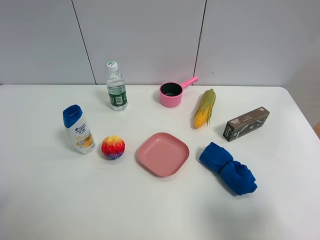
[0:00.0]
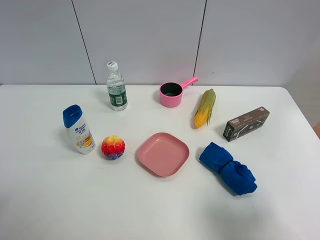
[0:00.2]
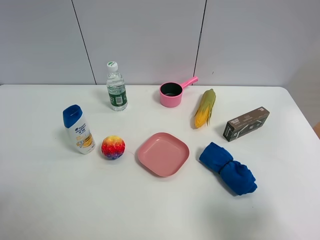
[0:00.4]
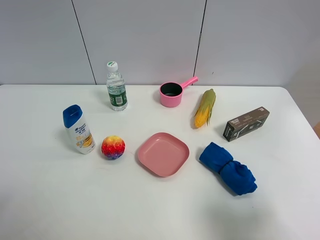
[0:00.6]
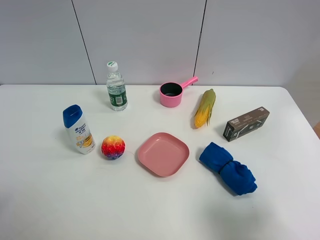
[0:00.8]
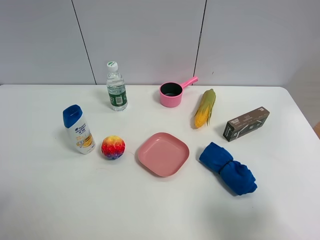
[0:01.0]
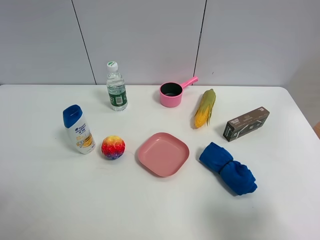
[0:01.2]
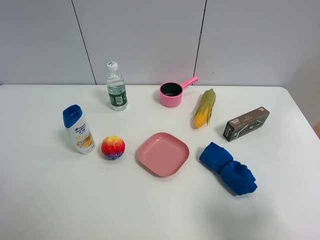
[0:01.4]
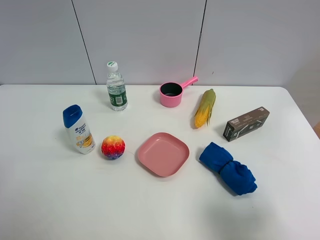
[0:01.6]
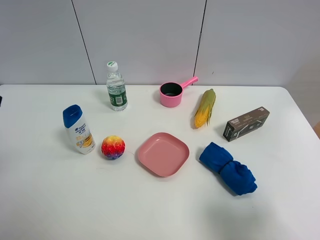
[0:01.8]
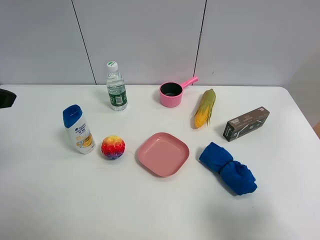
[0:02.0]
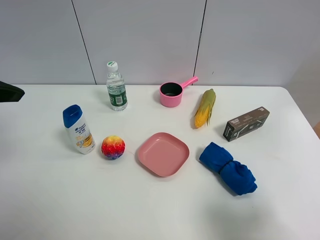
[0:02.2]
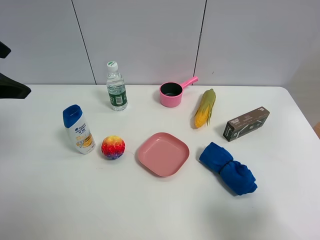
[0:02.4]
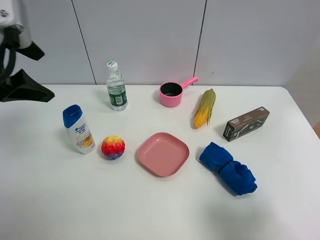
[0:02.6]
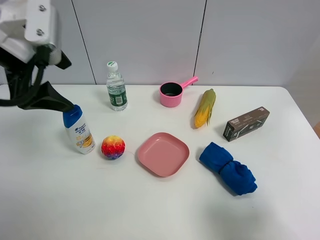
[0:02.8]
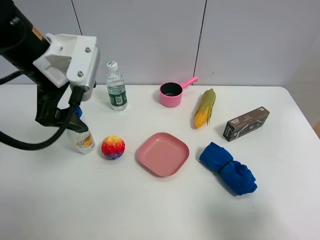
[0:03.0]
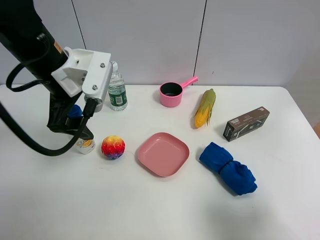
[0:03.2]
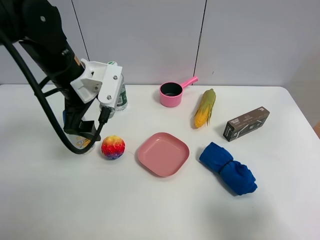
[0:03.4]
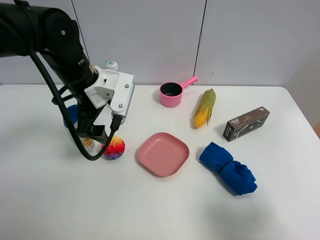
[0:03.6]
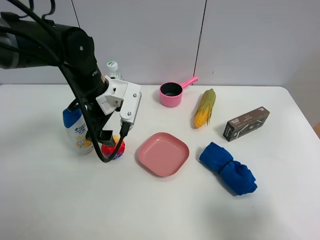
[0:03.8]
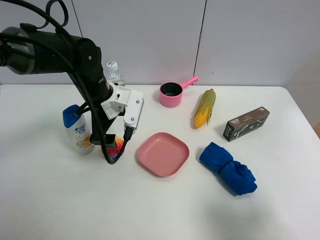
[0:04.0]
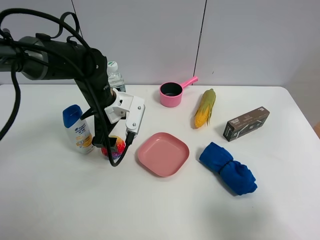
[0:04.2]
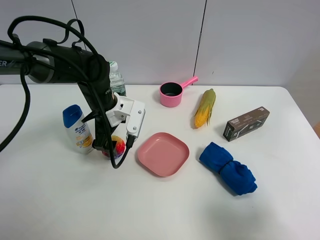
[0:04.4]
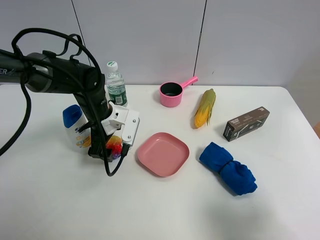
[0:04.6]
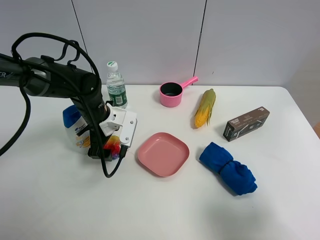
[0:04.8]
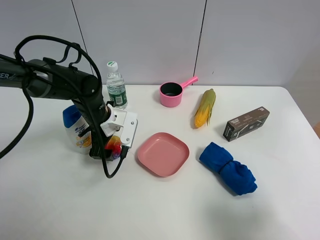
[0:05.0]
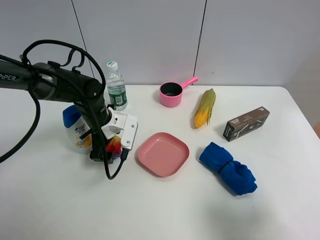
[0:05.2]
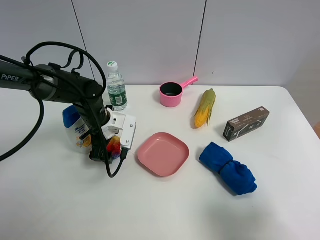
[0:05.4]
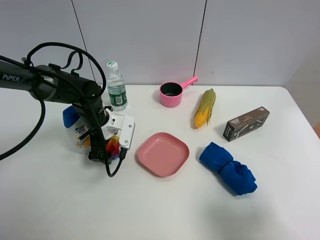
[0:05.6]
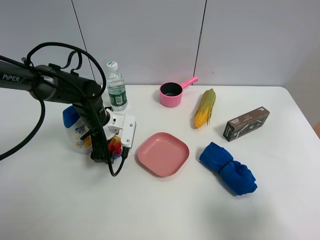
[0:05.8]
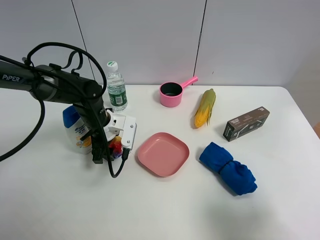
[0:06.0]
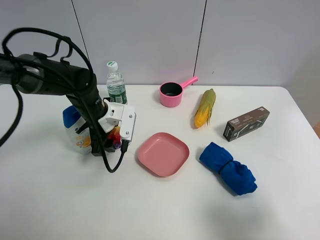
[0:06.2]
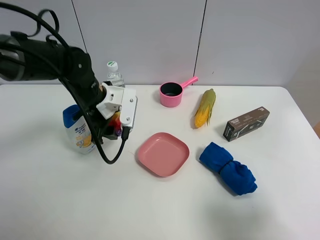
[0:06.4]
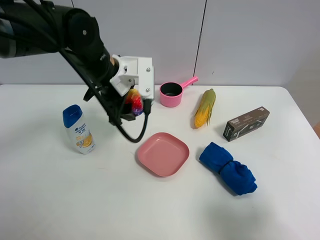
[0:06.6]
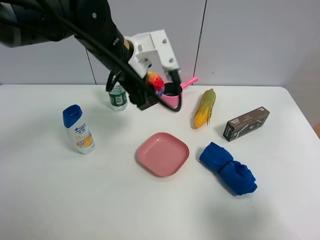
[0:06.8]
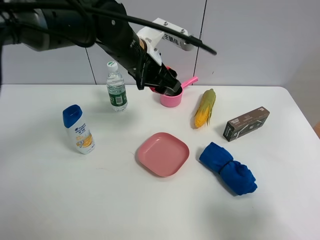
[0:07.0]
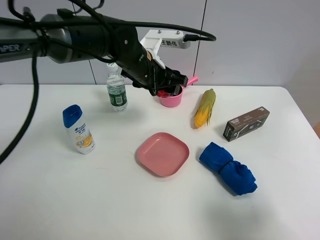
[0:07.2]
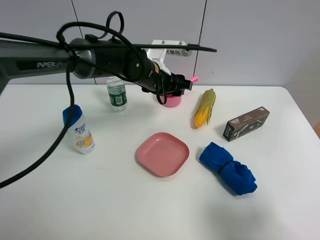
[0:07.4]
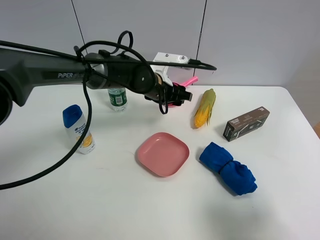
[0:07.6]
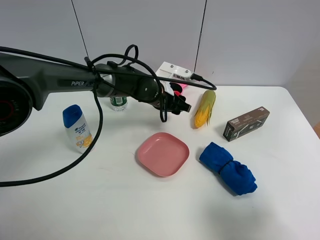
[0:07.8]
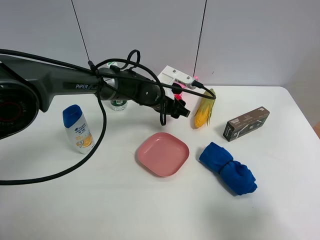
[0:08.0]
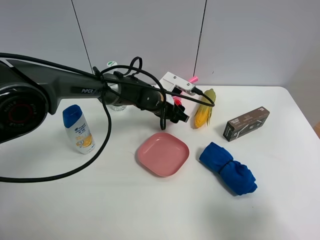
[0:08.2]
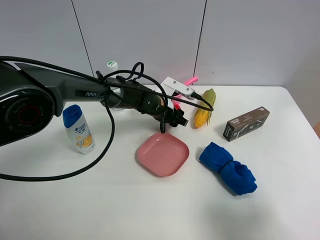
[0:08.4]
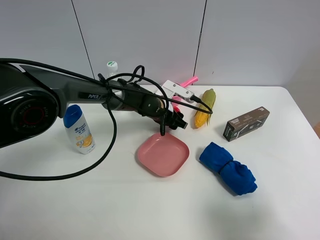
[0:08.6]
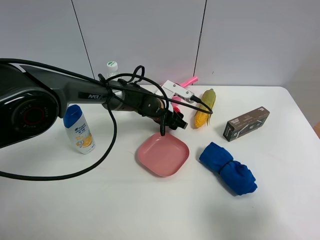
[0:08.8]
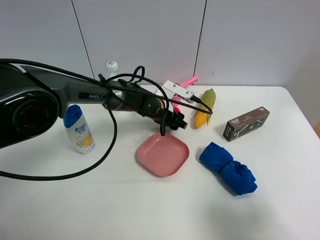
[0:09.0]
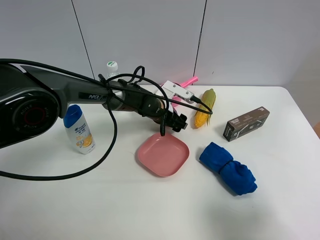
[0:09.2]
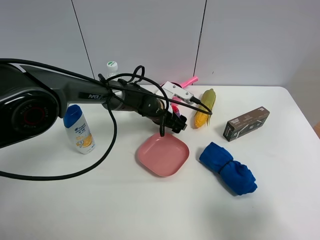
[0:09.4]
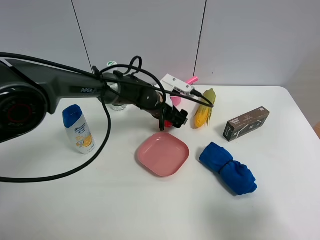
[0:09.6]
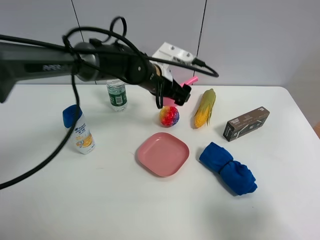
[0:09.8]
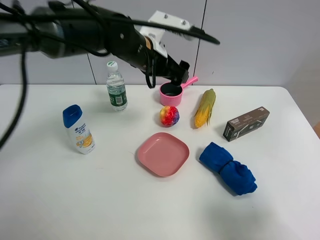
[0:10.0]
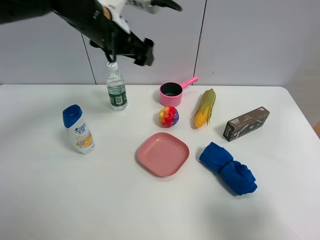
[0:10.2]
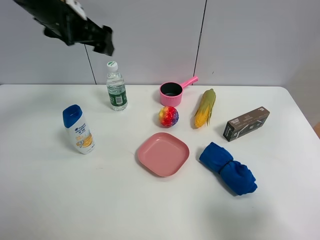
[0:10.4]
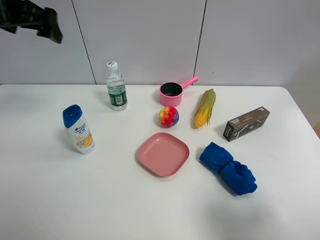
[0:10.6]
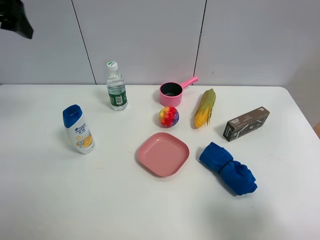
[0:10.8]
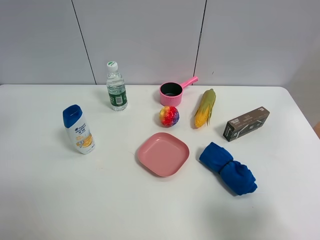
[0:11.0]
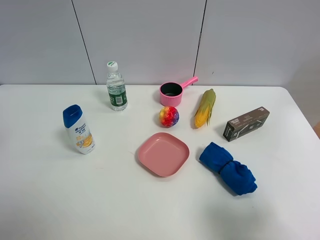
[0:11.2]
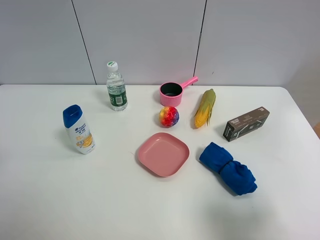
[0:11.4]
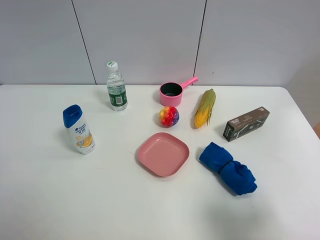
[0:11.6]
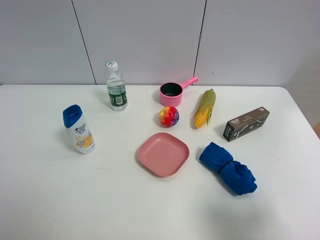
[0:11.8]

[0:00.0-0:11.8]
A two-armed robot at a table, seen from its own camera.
Task of the whole recording: the gripper move the object.
Step, 0:00.0 to 0:06.0: Grasp the colorful ball with the left gripper.
Step, 0:06.2 to 0:09.6: Place the colorful ball on the table with the left gripper.
0:01.4 to 0:03.0: The left gripper moves forward and to the right, approximately 25 cm.
0:03.0 to 0:04.4: The left gripper moves downward, some 15 cm.
0:04.4 to 0:06.0: The left gripper ends up some 5 cm from where it was, and closes up.
0:06.0 to 0:07.4: The left gripper goes roughly 15 cm to the right, upward and forward.
0:07.4 to 0:08.8: The left gripper shifts approximately 10 cm downward.
0:08.8 to 0:10.4: The left gripper is displaced upward and to the left by about 35 cm, and opens its fingers.
0:10.4 to 0:11.8: The left gripper goes some 35 cm backward.

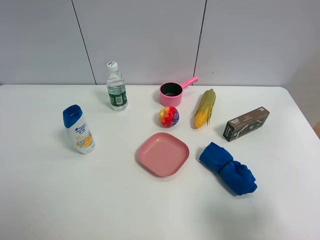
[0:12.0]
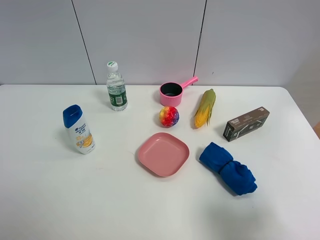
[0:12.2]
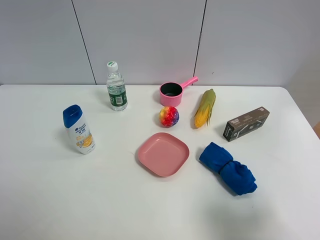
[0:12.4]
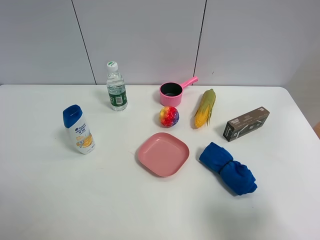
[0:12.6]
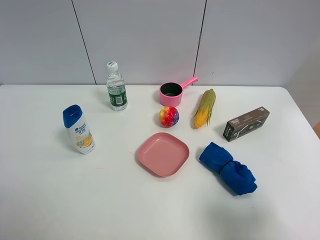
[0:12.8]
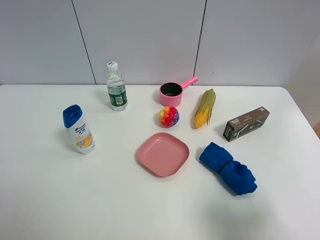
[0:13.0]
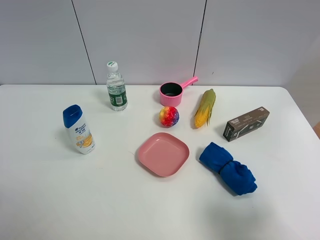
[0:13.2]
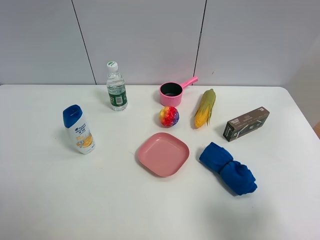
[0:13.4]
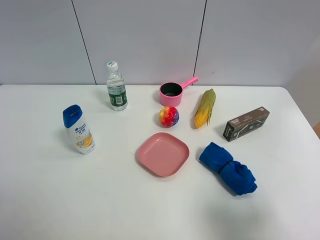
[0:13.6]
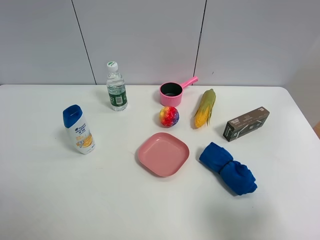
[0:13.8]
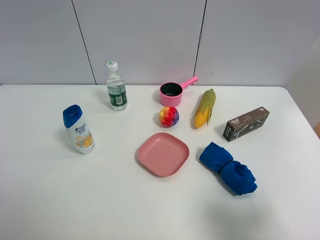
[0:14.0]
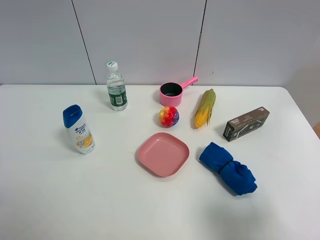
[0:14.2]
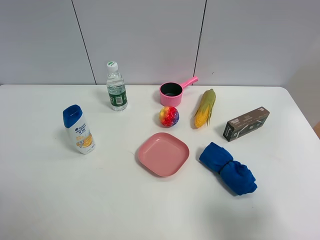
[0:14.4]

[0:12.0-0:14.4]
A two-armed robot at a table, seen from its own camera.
Task of the whole recording: the gripper move the object.
0:13.2 to 0:14.4: The two grippers keep their place.

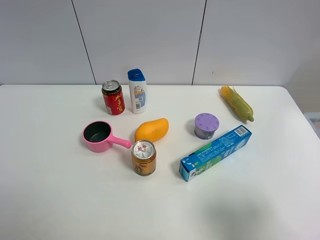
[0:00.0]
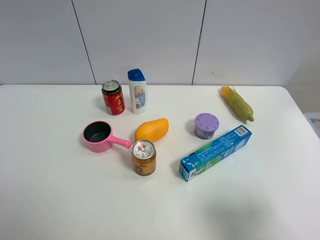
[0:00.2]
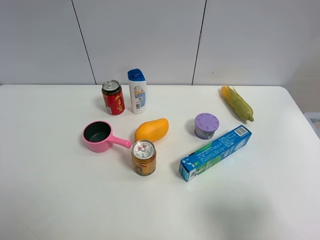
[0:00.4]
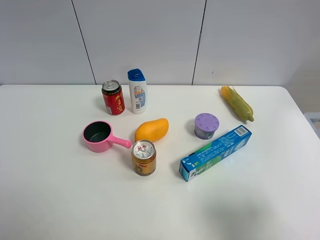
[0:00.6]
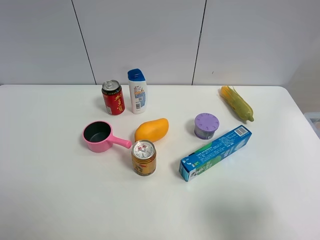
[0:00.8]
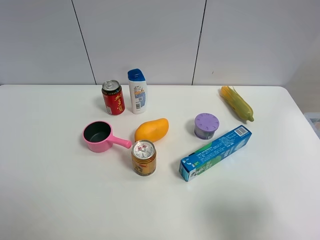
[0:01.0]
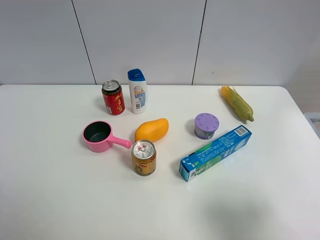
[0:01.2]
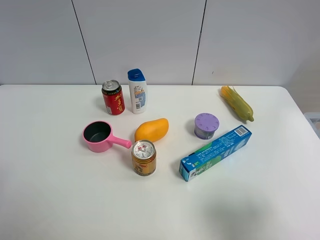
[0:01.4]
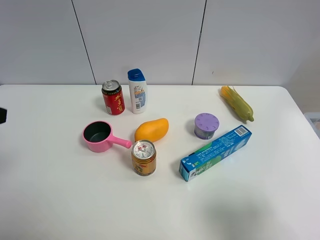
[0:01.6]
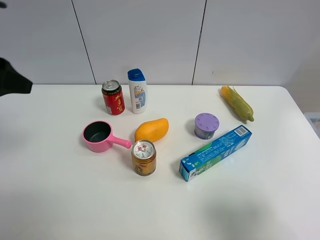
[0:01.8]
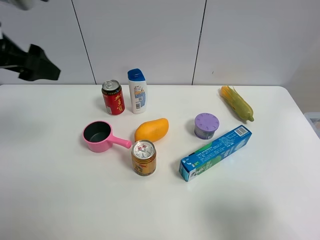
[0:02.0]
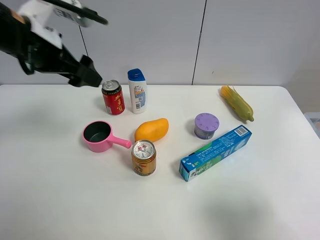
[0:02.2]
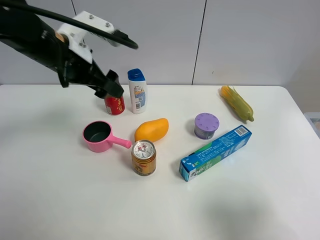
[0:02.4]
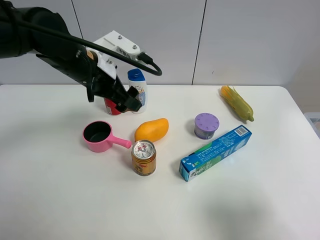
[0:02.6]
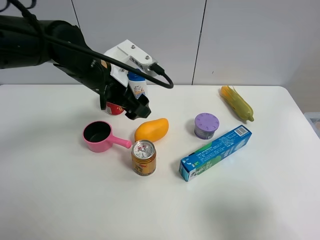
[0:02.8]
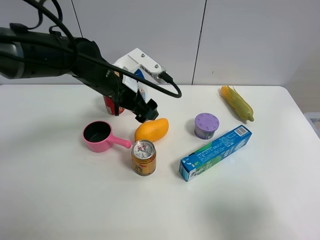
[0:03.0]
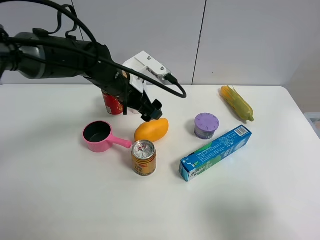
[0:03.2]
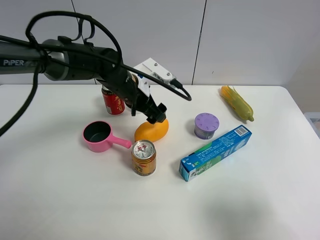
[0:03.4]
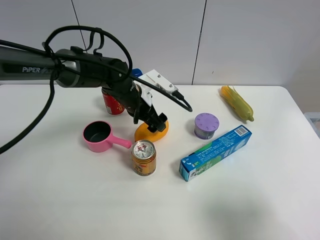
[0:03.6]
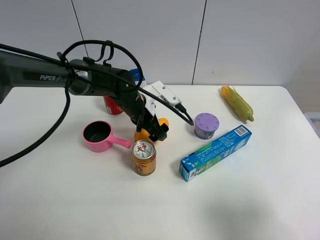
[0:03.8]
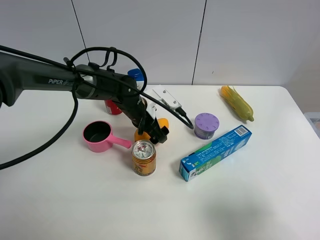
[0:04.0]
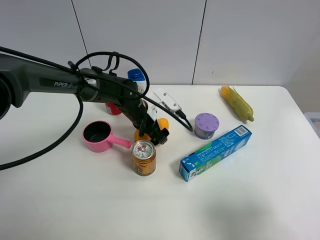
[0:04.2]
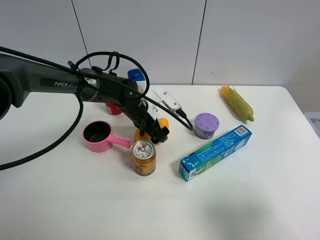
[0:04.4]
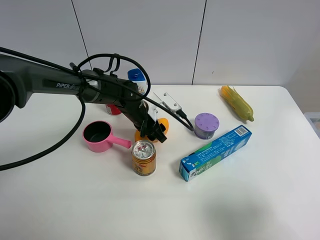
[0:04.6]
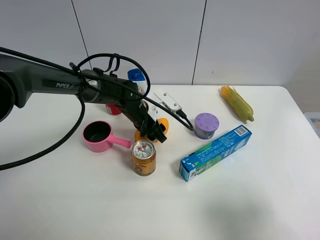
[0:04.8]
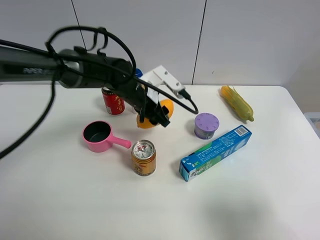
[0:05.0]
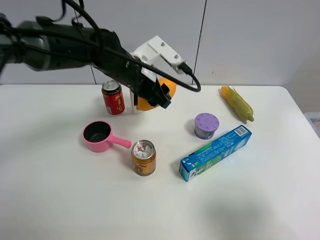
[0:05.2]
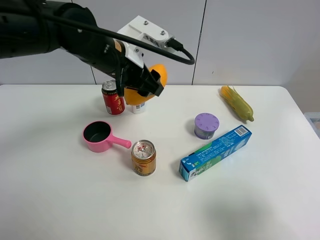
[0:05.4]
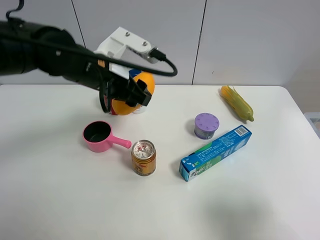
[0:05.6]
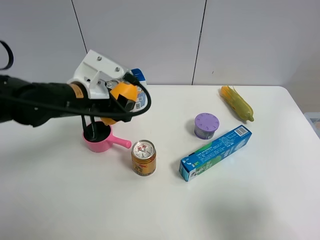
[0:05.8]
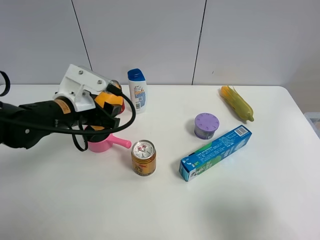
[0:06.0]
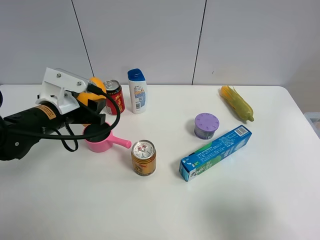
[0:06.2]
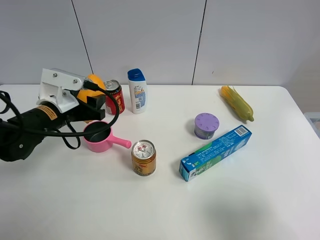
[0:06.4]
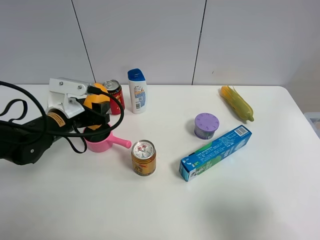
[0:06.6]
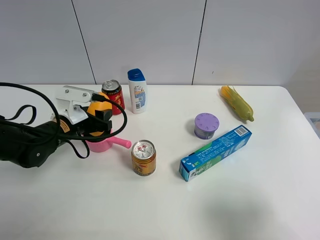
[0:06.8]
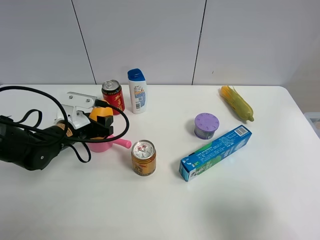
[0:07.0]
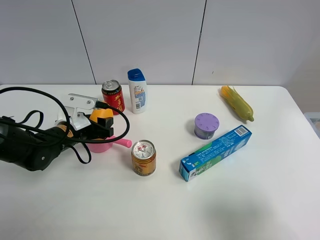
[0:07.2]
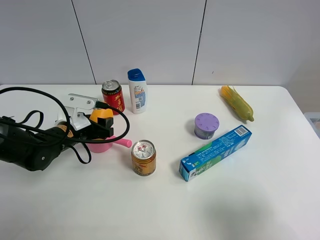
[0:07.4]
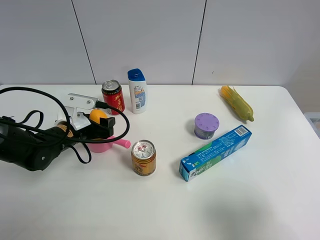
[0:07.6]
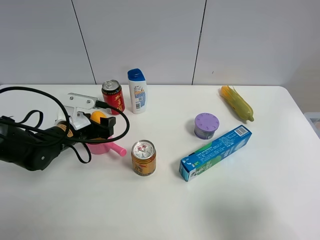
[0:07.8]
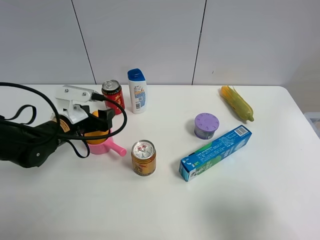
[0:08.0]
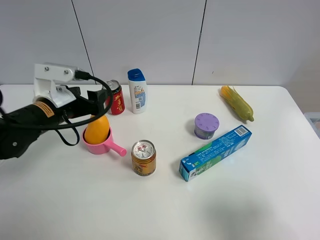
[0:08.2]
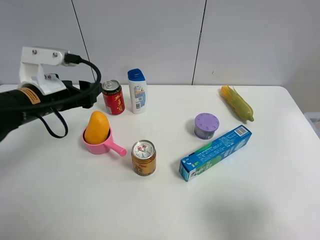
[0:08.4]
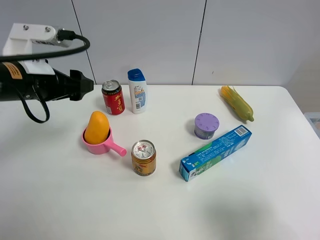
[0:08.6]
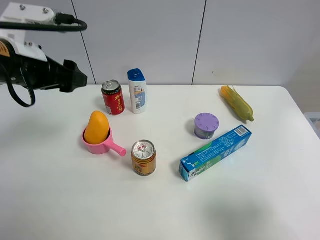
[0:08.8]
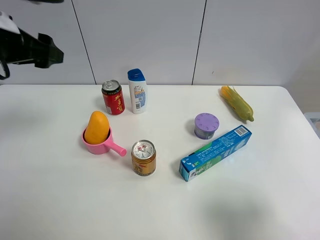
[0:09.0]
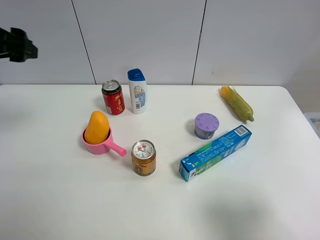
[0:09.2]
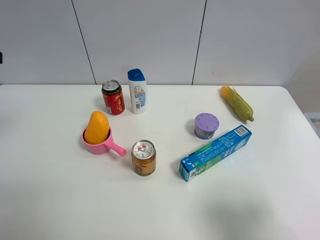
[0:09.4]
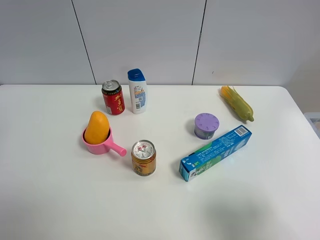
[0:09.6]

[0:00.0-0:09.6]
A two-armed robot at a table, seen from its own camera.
Task of the whole recording: the gripper move the object.
Step, 0:00.0 to 0:04.6: Grasp the mango with the left gripper.
Step, 0:04.8 to 0:08.0: Place the mango into the pink pot with the left gripper.
0:01.6 to 0:03.2: The left gripper is displaced to the right, forward and downward by roughly 35 cm.
0:03.2 to 0:04.8: The left gripper shifts approximately 10 cm downward, and closes its fingers.
0:04.8 to 0:06.4: The left gripper shifts some 20 cm to the left, backward and upward.
0:06.4 to 0:08.0: The left gripper opens its fingers.
0:08.0 to 0:09.6: The left gripper travels upward and to the left by about 30 cm.
